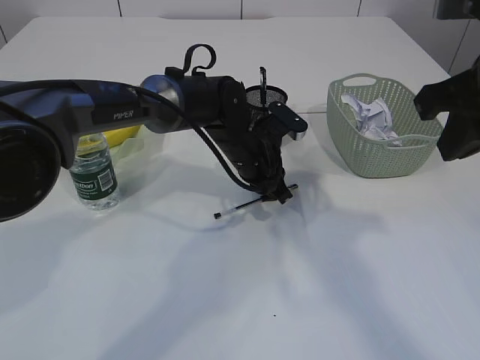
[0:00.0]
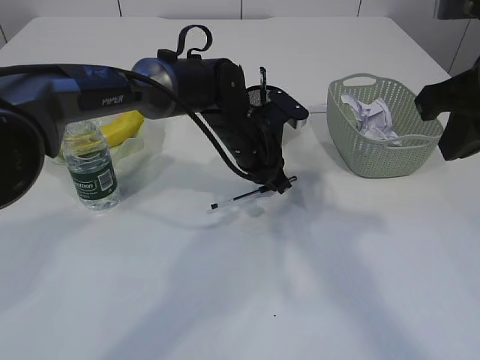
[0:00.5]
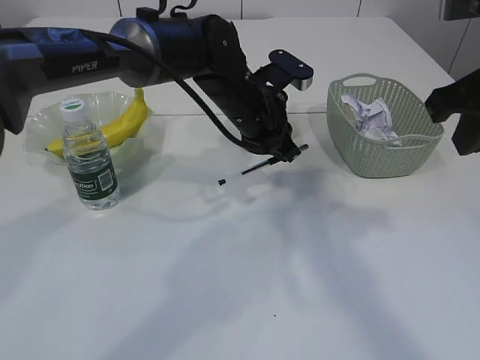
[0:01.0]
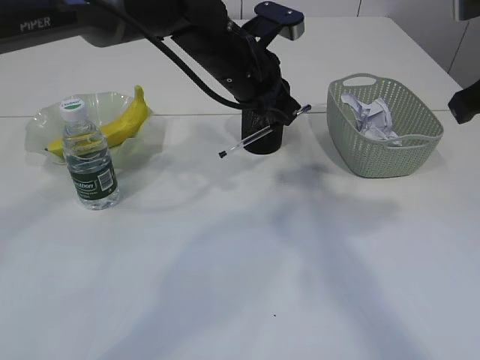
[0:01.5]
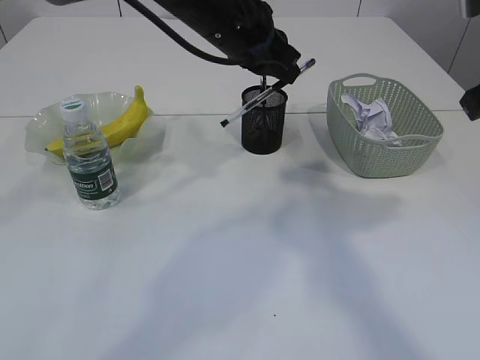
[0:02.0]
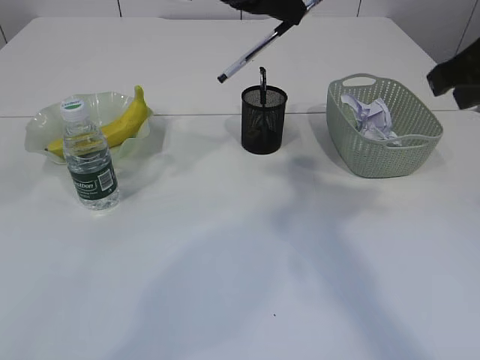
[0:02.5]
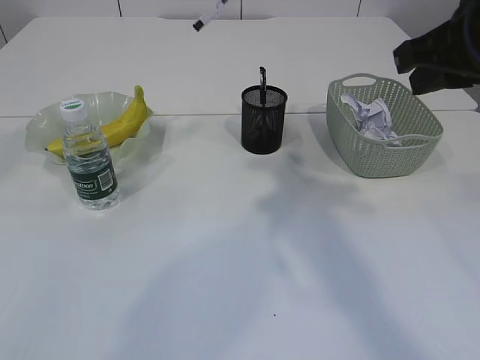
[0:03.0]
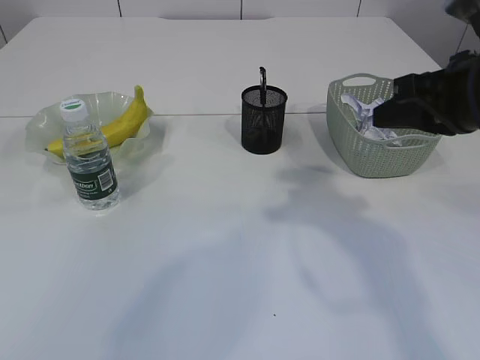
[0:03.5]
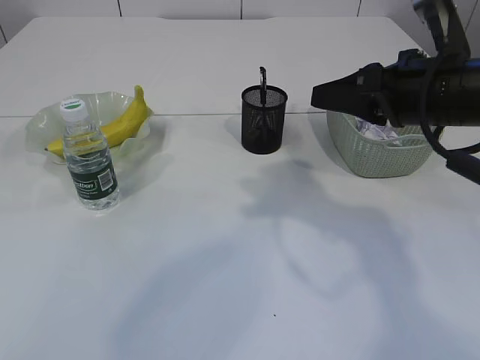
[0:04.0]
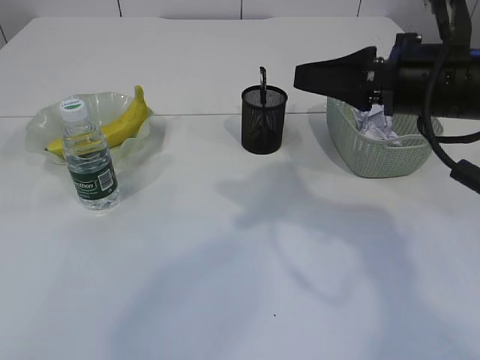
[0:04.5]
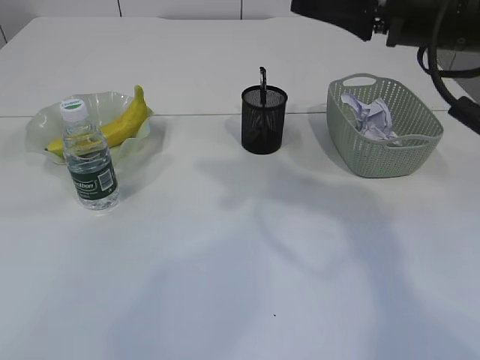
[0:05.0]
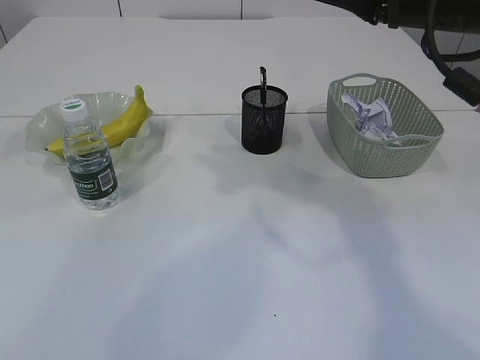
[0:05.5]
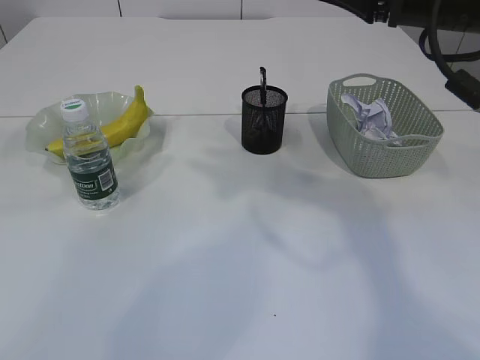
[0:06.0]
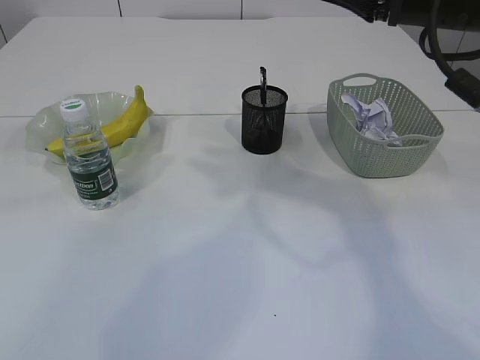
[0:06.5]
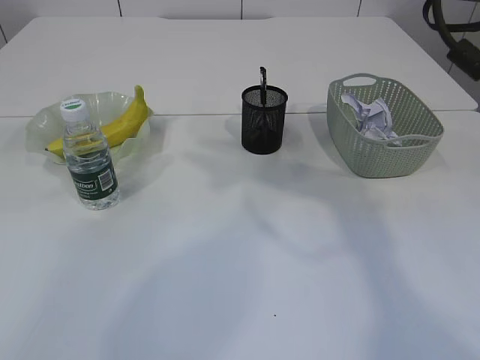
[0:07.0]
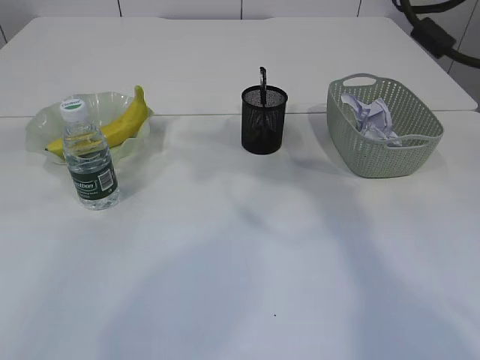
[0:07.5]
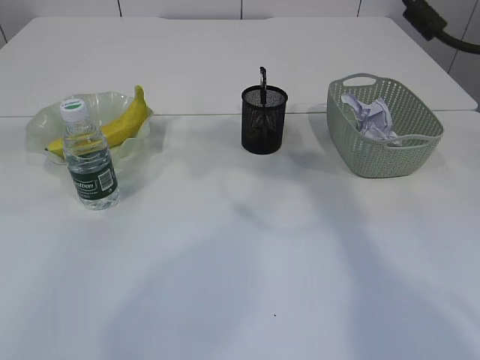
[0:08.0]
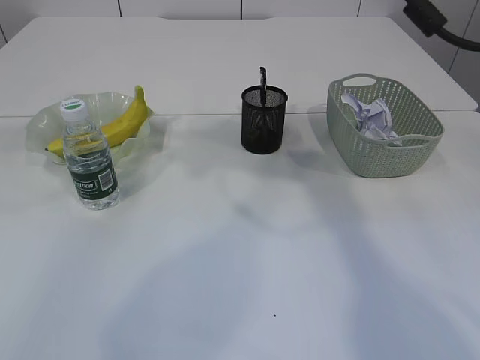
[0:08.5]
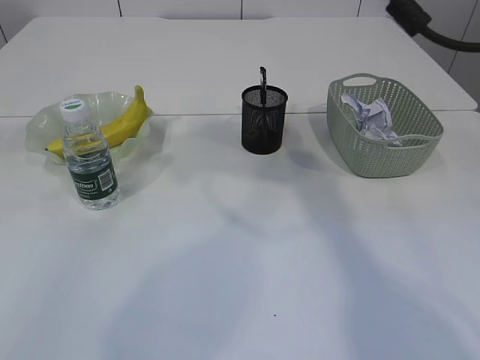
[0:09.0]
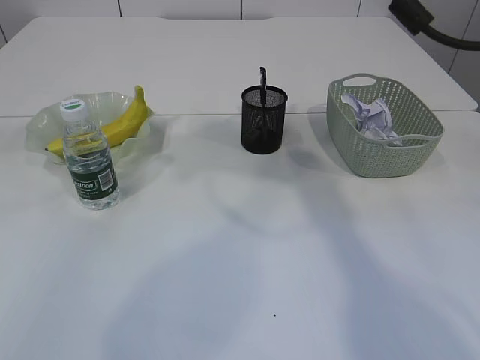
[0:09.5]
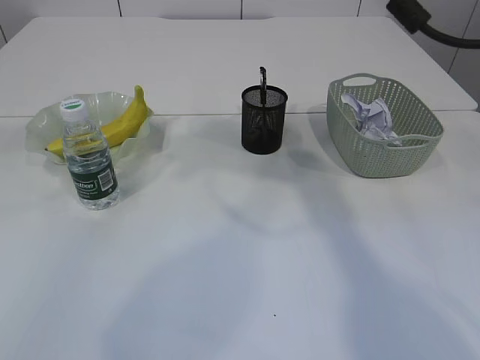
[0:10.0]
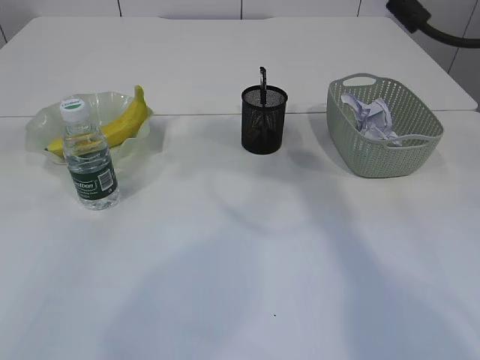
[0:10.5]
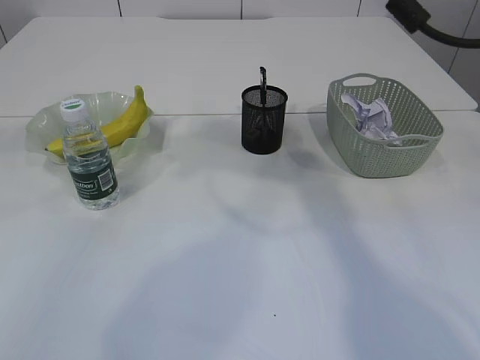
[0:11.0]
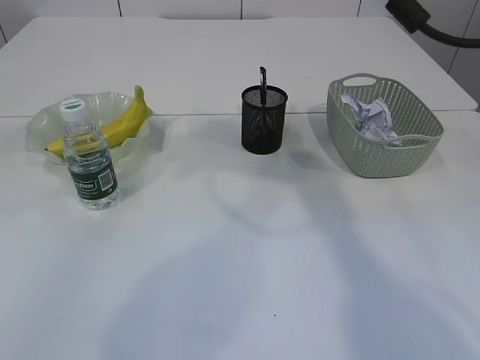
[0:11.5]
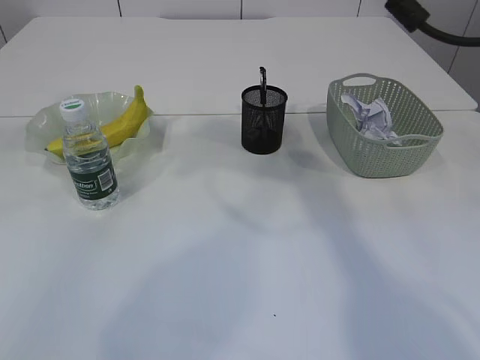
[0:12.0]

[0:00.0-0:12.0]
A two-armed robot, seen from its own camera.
0:00.0 to 0:02.0: The left gripper heads upward, covering about 20 cm.
0:02.0 to 0:04.0: The right gripper is displaced downward by some 5 cm. The left gripper shifts about 15 cm upward.
0:04.0 to 0:06.0: The right gripper moves upward, some 10 cm, and opens up.
0:06.0 to 0:08.0: The right gripper changes place by about 5 cm.
0:08.0 to 0:10.0: The right gripper closes its fingers.
0:10.0 to 0:12.0: Both grippers stay about where they are.

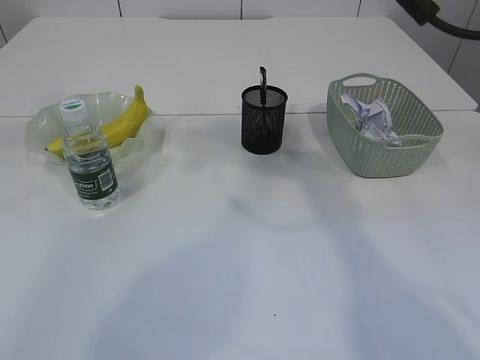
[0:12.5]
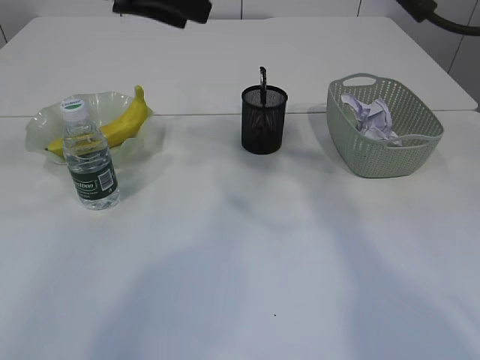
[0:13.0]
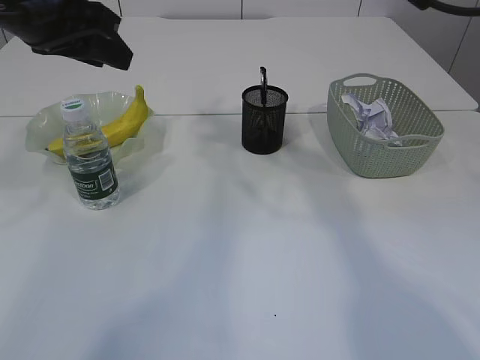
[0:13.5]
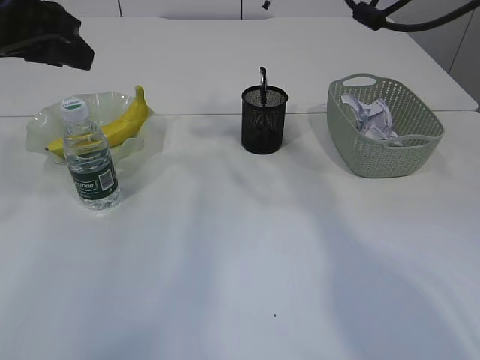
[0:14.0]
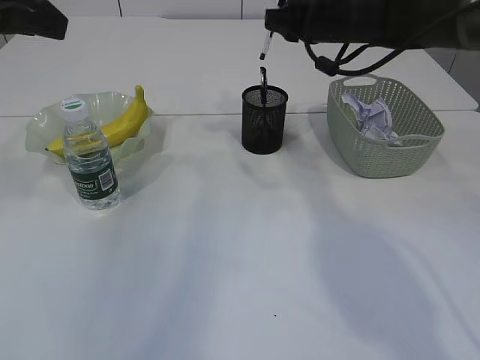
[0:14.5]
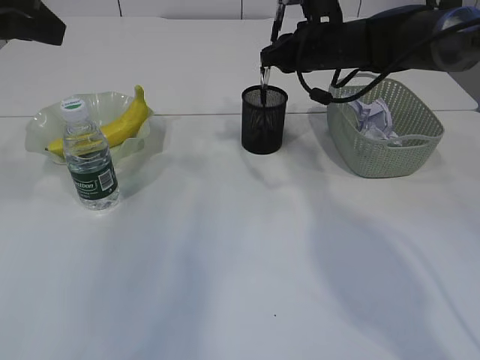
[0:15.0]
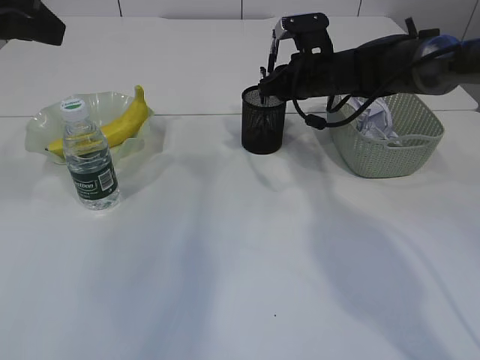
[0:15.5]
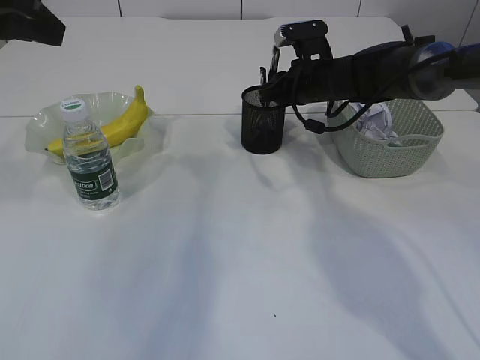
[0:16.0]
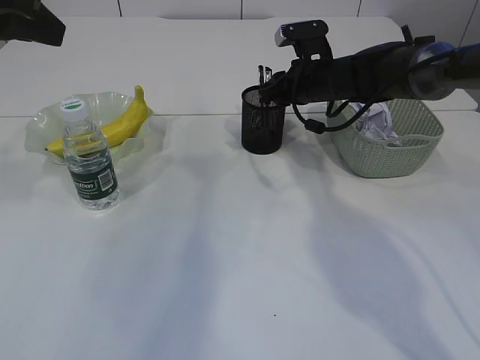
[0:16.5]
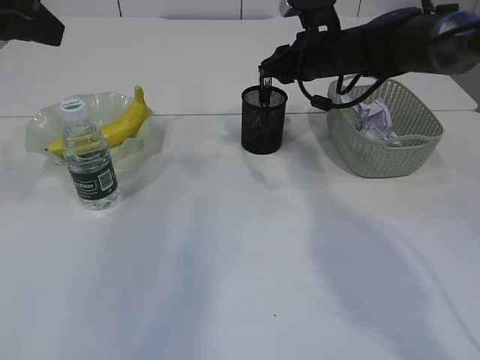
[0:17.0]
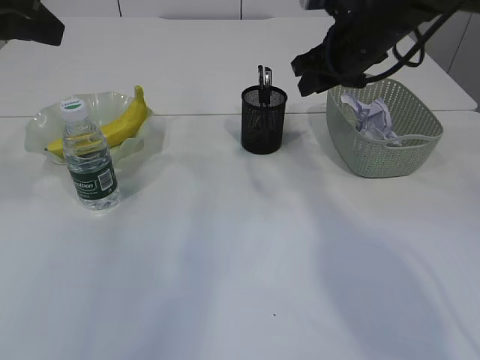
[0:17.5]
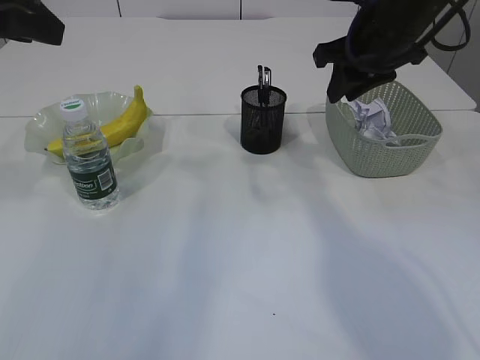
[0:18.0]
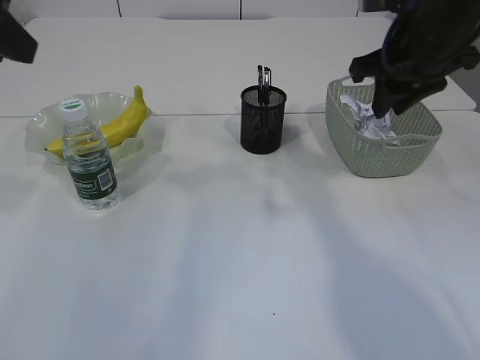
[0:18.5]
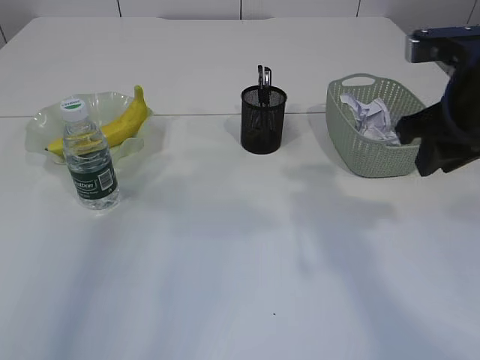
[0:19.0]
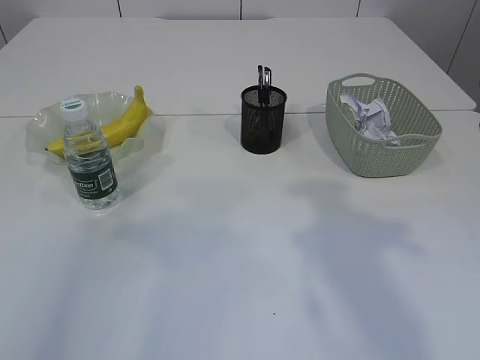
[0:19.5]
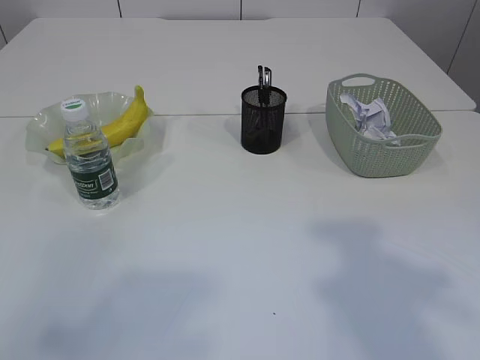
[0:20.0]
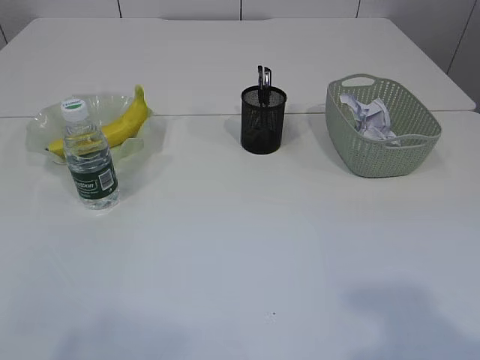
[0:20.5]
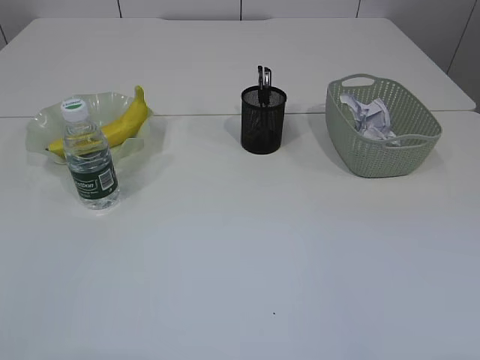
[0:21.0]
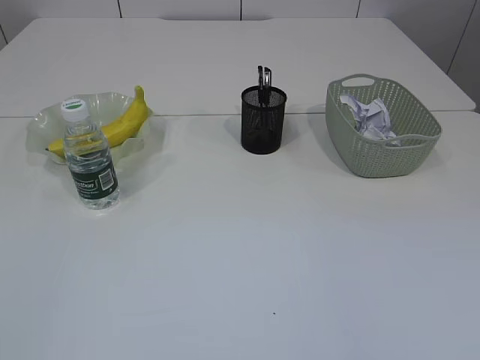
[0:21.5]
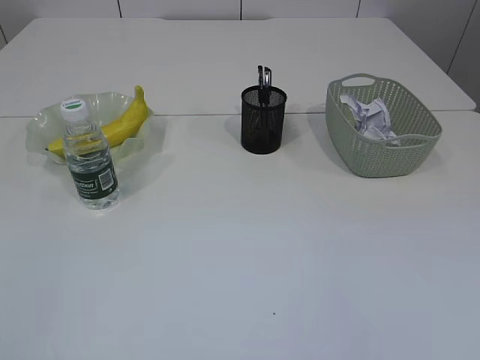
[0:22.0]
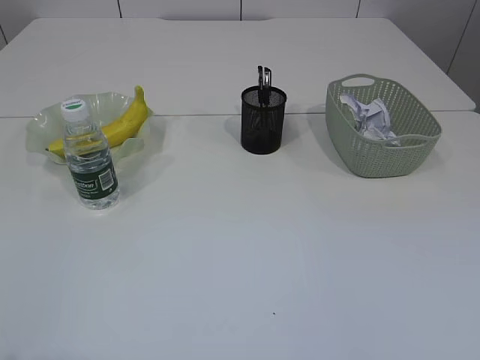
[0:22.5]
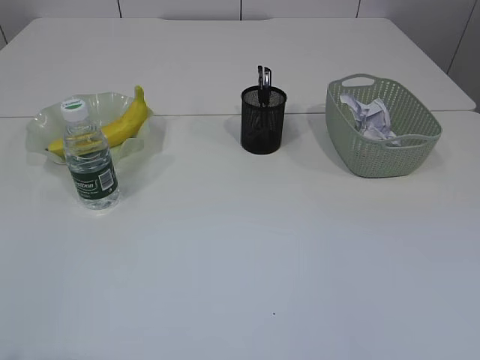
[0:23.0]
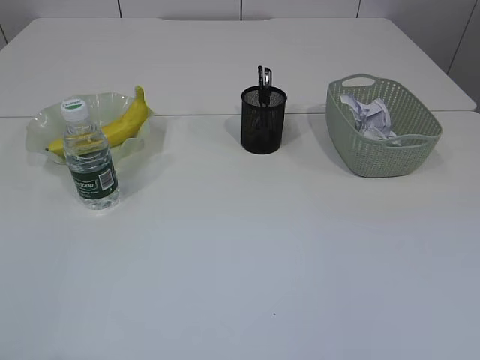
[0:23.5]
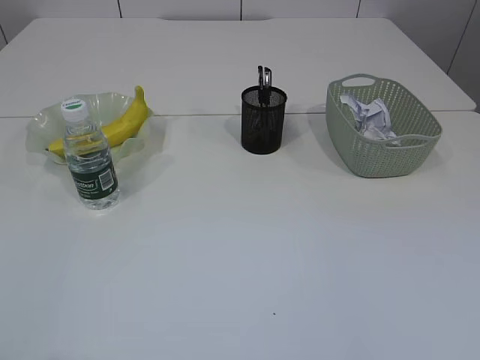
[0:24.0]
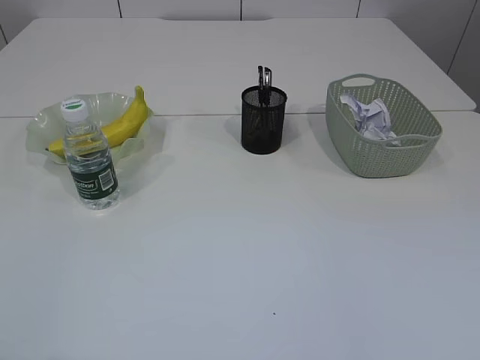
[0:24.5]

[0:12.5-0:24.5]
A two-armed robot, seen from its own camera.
Step, 0:13.5 to 0:17.5: Place the pen into the pen holder.
0:12.5 to 0:14.5: The right gripper is displaced forward and downward by roughly 20 cm, while the left gripper moves to the left, downward and backward, approximately 15 cm.
0:14.5 to 0:16.5: The right gripper moves downward, approximately 10 cm.
0:16.5 to 0:18.5: The right gripper heads backward, upward and to the right, covering about 20 cm.
0:18.5 to 0:20.5: The grippers both shift backward by some 30 cm.

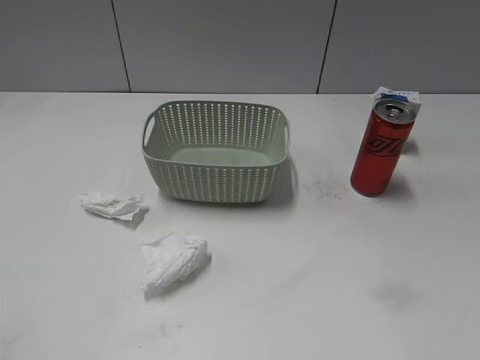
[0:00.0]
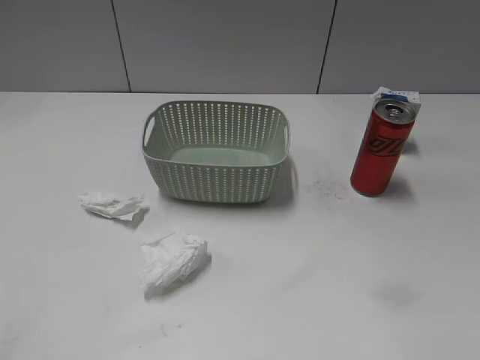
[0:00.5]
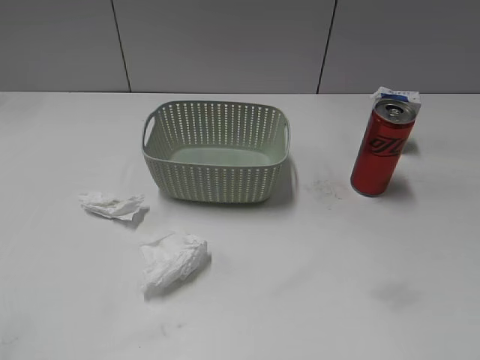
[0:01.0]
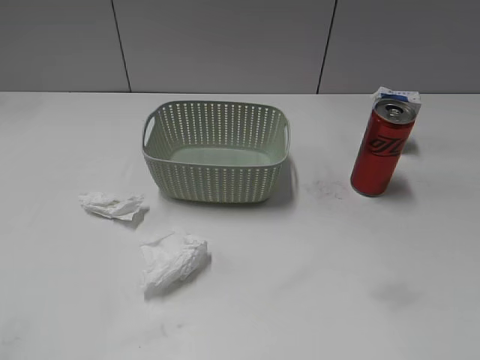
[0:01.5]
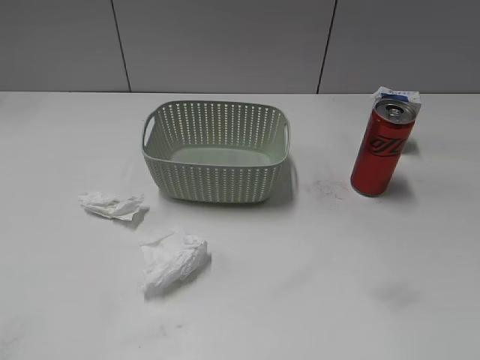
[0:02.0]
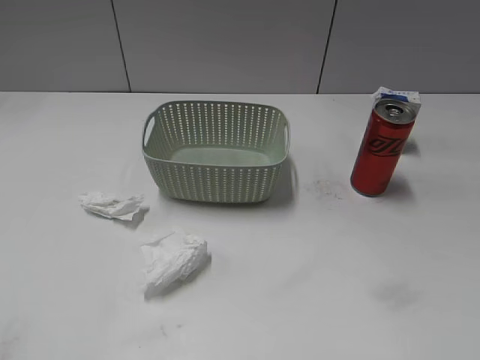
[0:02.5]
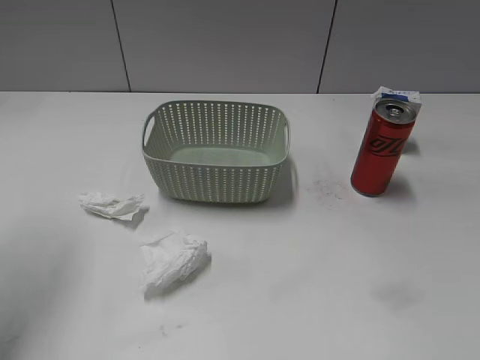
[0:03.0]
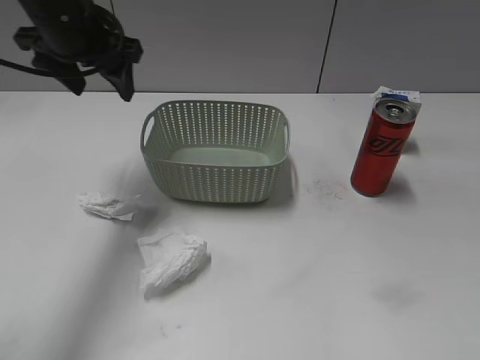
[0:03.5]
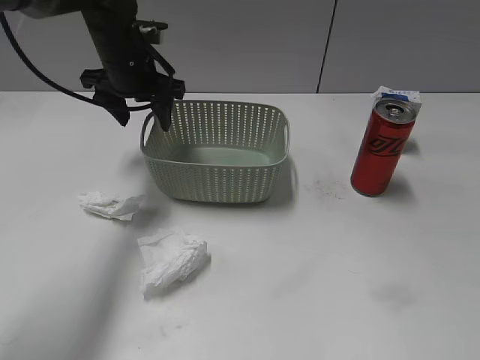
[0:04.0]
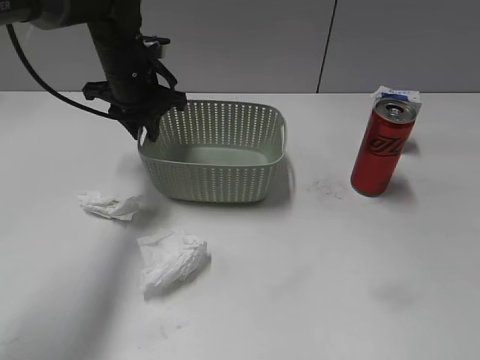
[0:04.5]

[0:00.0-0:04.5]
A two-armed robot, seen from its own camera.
0:02.0 to 0:04.5: The left gripper shifts about 50 cm forward and to the right, and closes its fingers.
